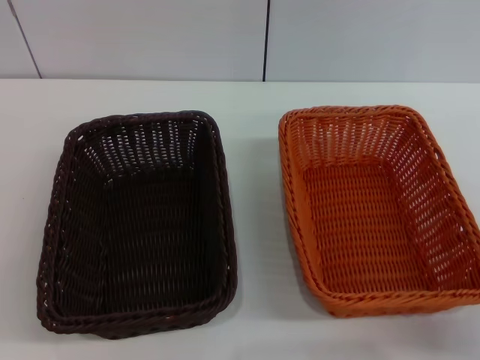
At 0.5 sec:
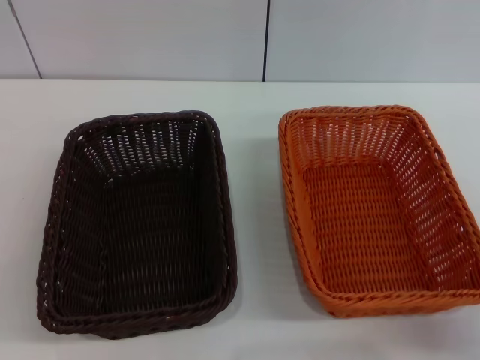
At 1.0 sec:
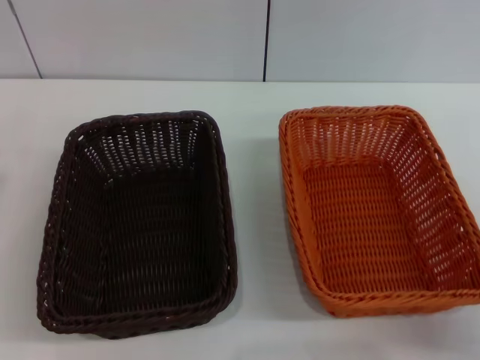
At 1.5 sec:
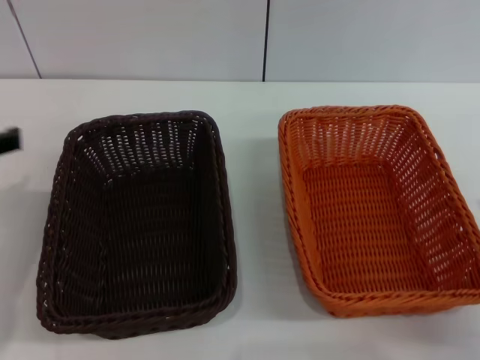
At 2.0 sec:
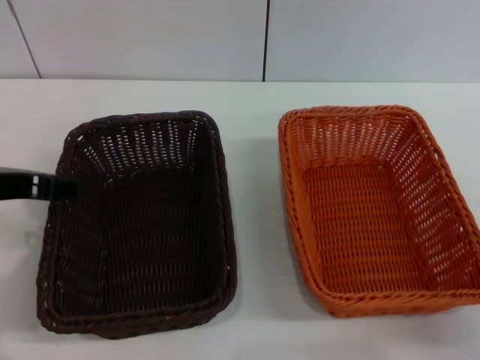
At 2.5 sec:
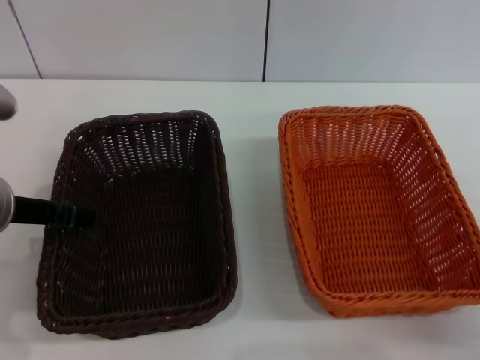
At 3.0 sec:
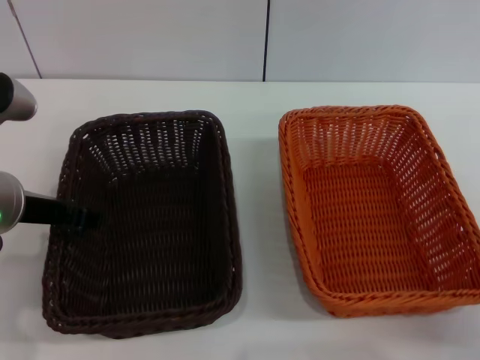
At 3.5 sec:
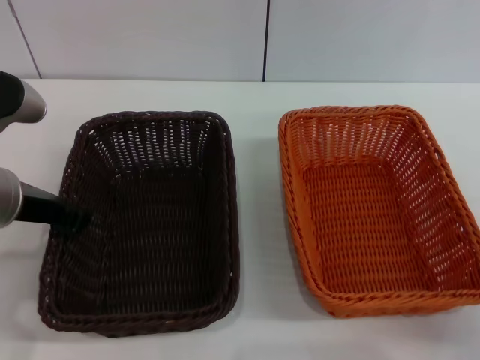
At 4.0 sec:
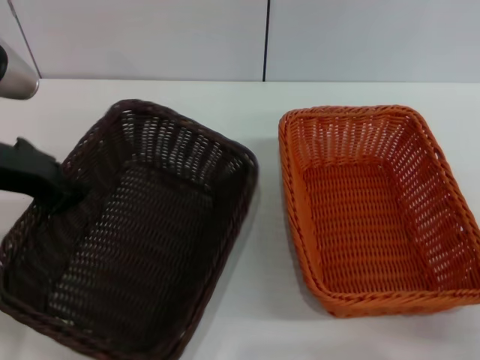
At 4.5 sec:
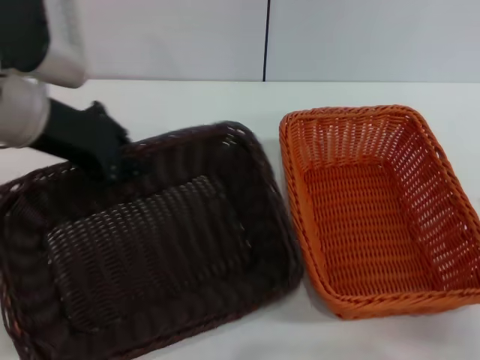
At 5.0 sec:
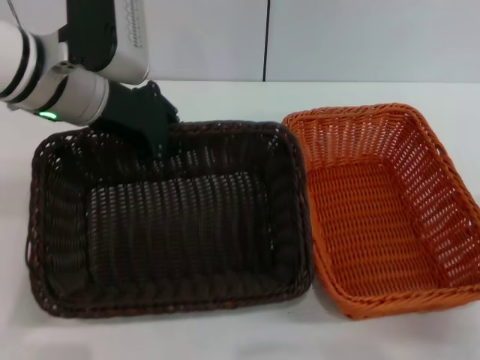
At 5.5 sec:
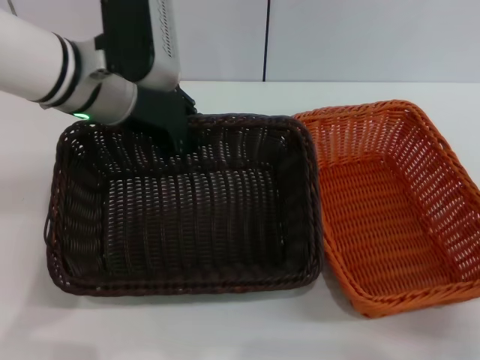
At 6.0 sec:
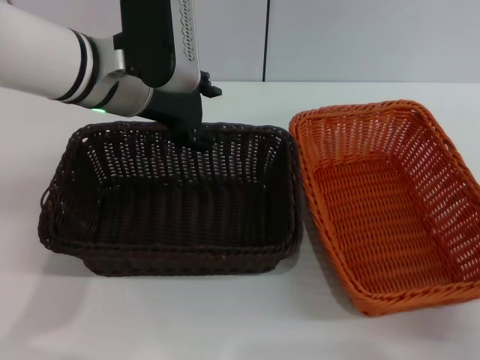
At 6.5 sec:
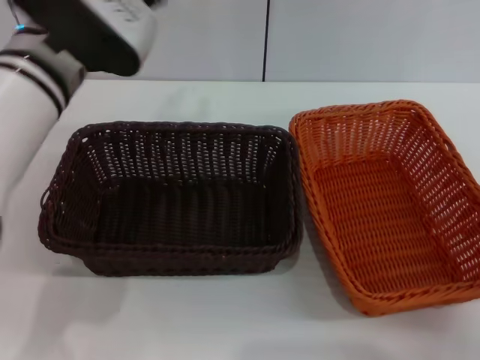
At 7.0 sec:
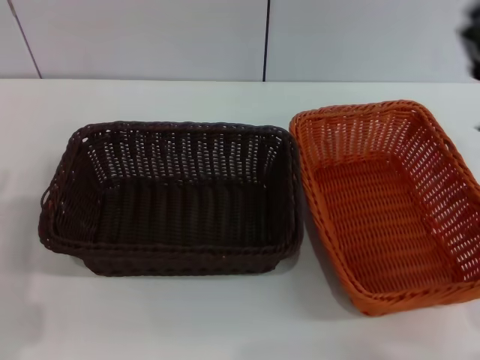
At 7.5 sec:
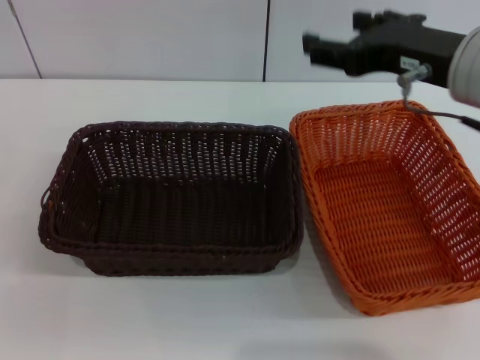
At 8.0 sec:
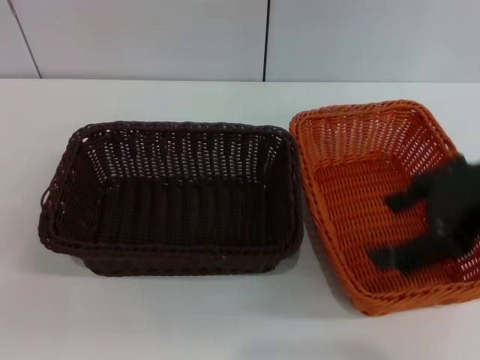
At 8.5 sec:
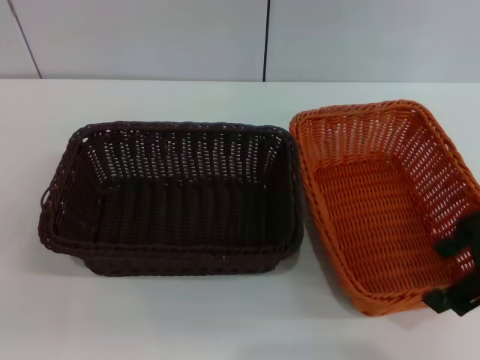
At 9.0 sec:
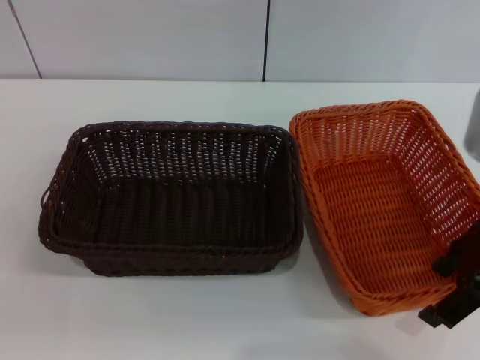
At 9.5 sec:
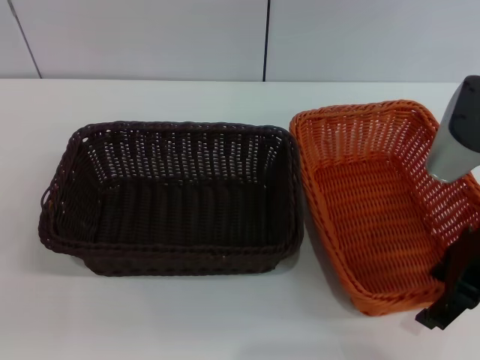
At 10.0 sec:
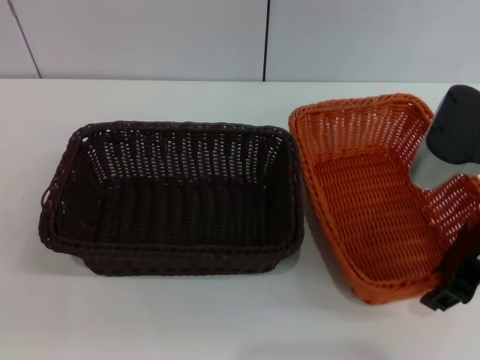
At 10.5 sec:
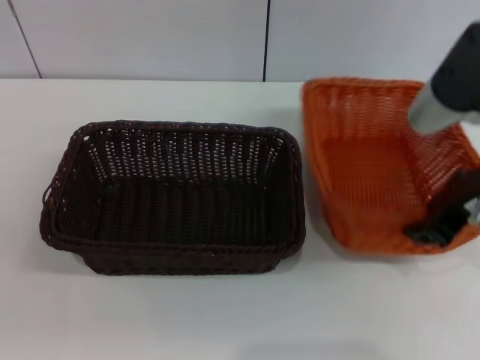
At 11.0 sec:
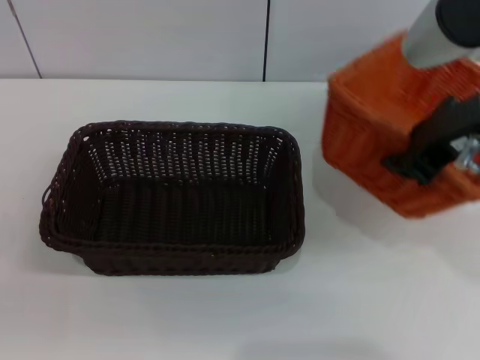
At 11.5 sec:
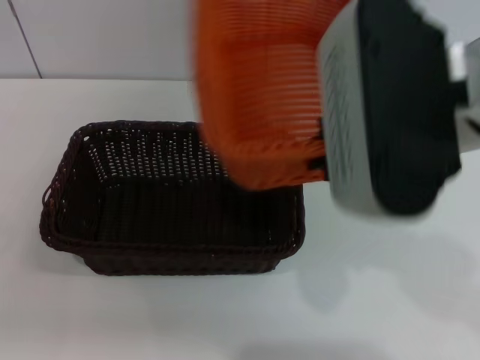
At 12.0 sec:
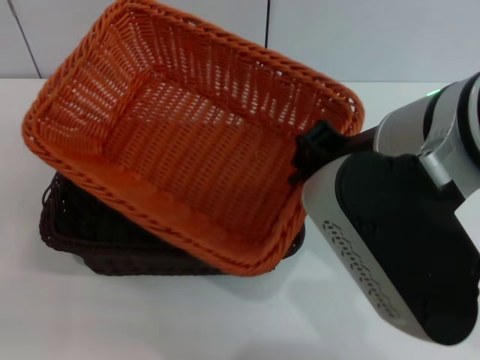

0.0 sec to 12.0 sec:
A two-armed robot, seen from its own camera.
Step, 0.0 sec to 4.0 sec: Pick up the dark basket with the left gripper.
Step, 4.5 sec to 5.5 sec: Place the dark basket in the center of view with the left gripper.
Step, 6.0 sec to 10.0 sec: Pick up the light basket with the right gripper.
0.0 sec to 2.0 sec: The left gripper goes about 25 cm upward, to the right and forward.
2.0 sec to 4.0 sec: The left gripper closes.
4.0 sec to 6.0 sec: The left gripper heads to the right and forward, covering roughly 15 cm, and opens up.
6.0 sec to 8.0 sec: The right gripper heads upward, covering about 25 cm. The left gripper travels backward, to the left and downward by some 35 cm.
8.0 sec to 10.0 sec: The right gripper shifts approximately 10 cm downward.
10.0 sec to 12.0 sec: The right gripper goes roughly 15 cm to the left, upward and backward, and closes.

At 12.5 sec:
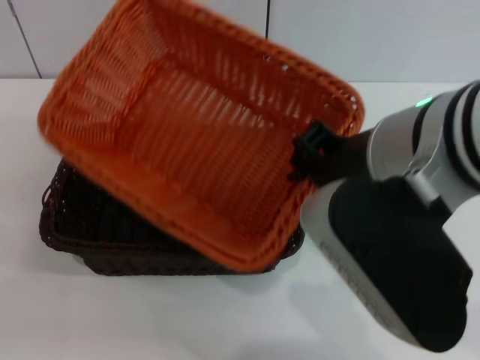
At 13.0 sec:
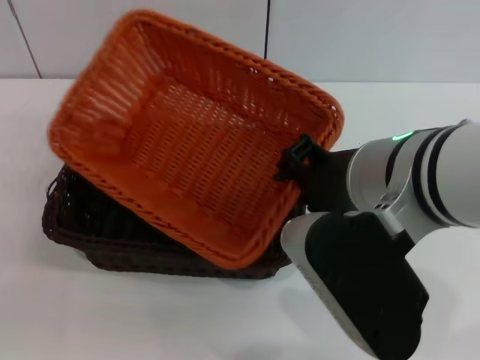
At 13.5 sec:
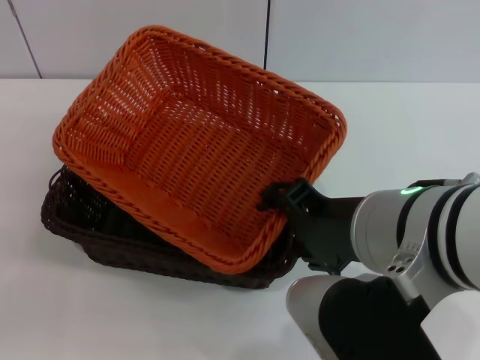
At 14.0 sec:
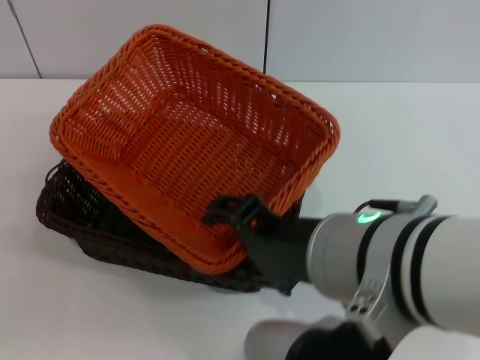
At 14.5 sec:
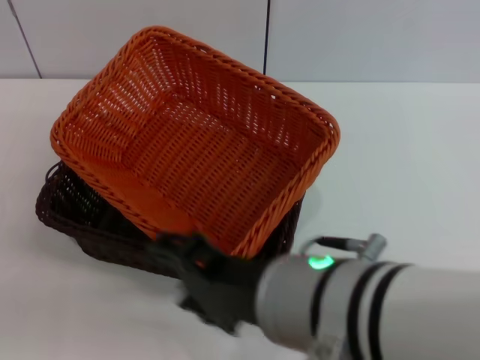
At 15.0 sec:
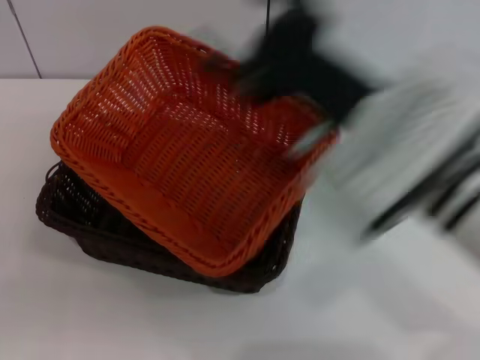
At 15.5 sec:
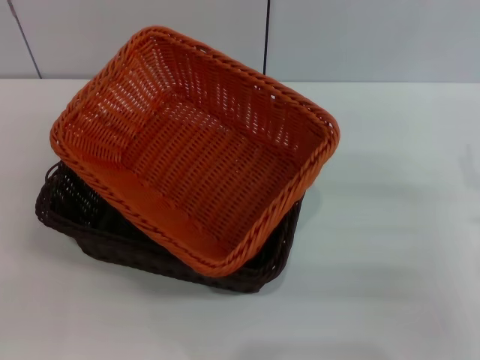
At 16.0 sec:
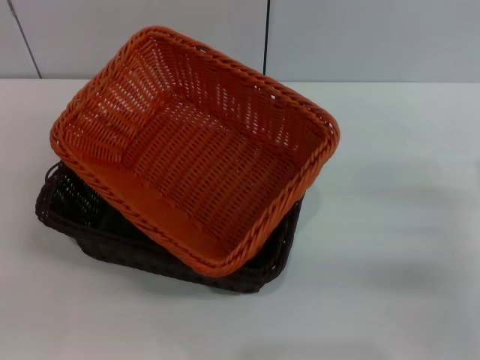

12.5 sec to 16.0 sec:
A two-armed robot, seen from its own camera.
12.5 sec to 14.5 sec: The right gripper moves backward, downward and to the left, about 10 cm, and opens.
14.5 sec to 16.0 sec: The right gripper shifts some 30 cm to the right and downward.
